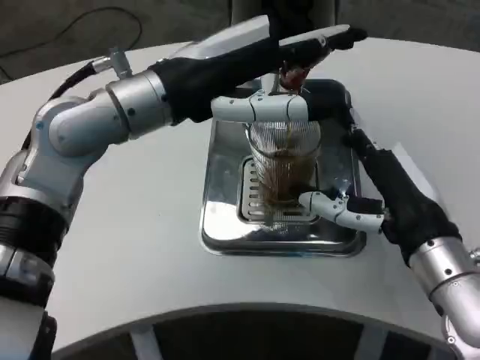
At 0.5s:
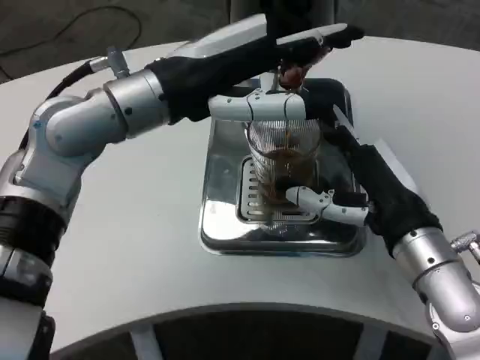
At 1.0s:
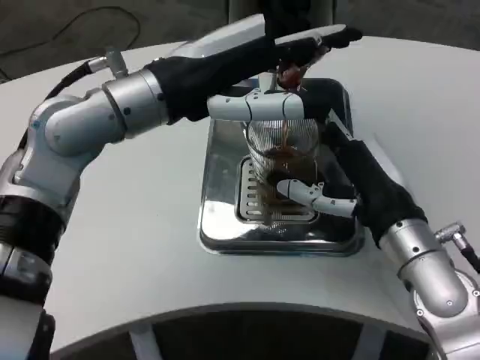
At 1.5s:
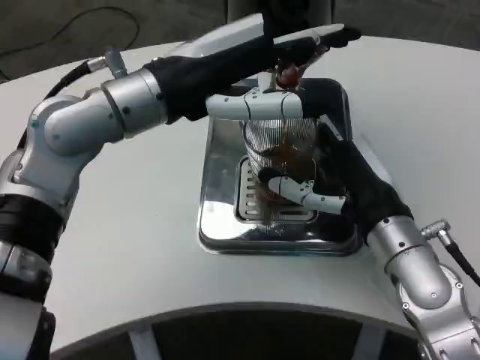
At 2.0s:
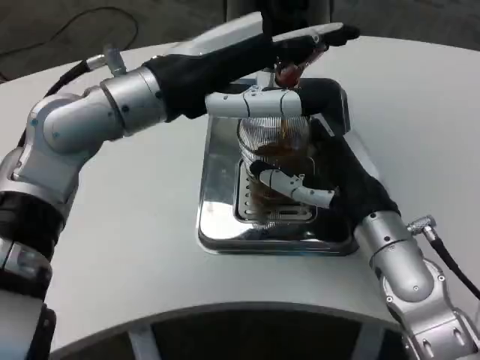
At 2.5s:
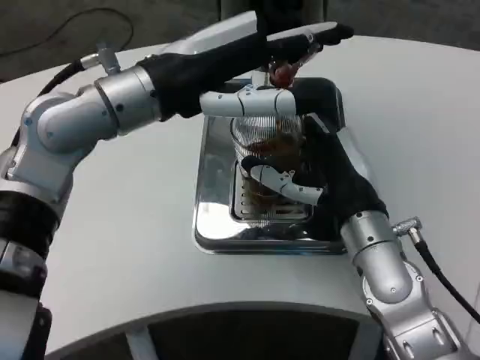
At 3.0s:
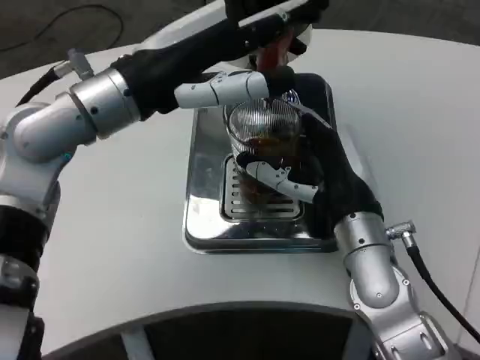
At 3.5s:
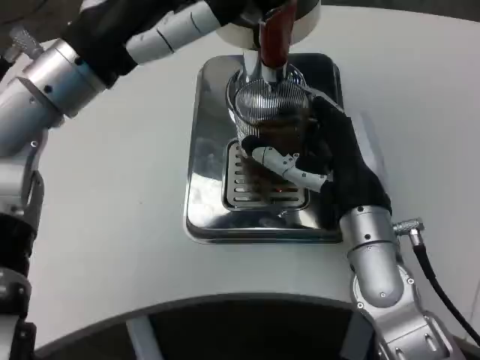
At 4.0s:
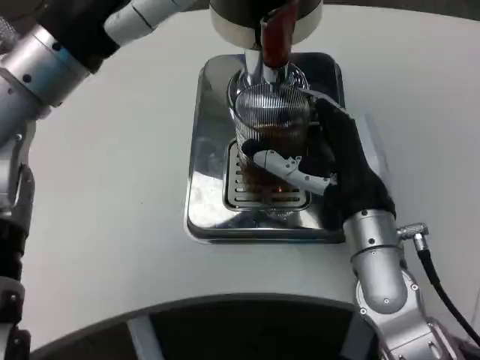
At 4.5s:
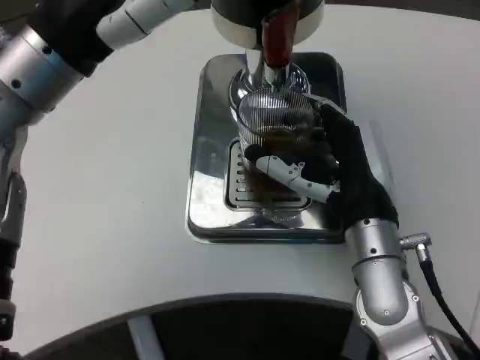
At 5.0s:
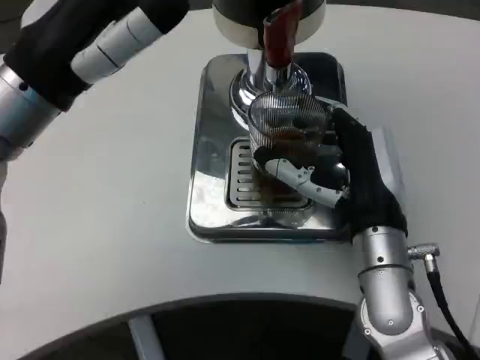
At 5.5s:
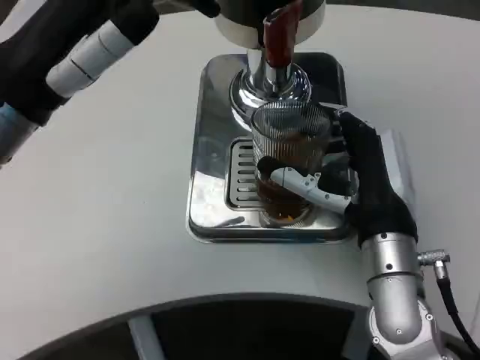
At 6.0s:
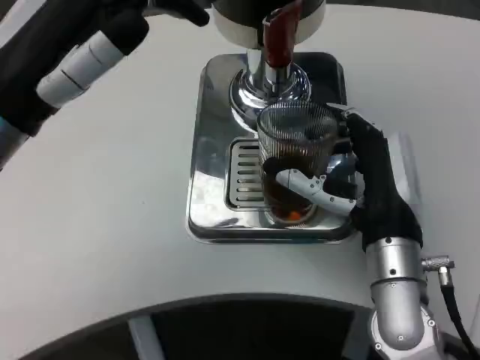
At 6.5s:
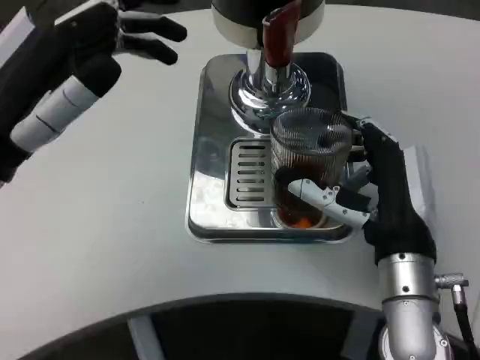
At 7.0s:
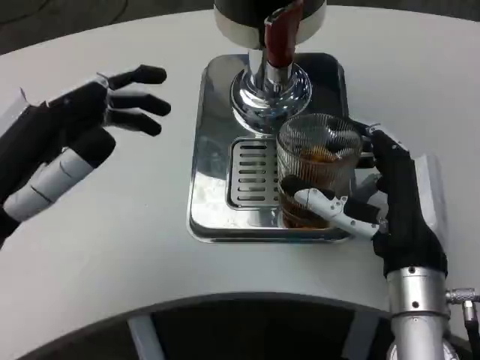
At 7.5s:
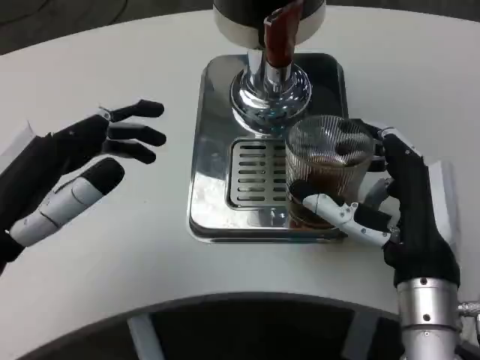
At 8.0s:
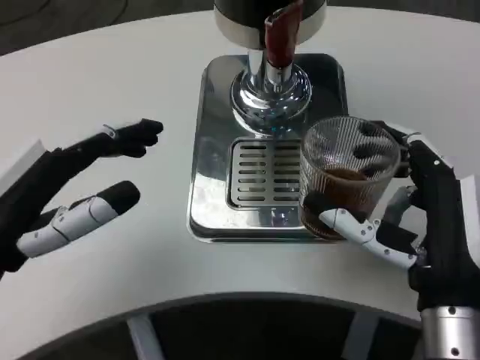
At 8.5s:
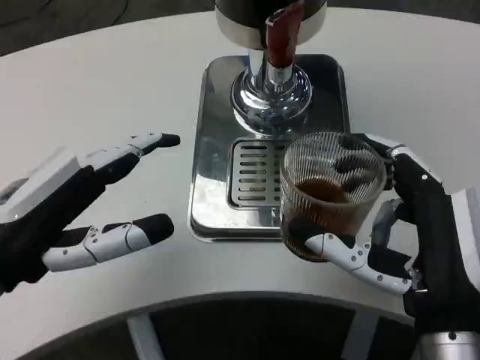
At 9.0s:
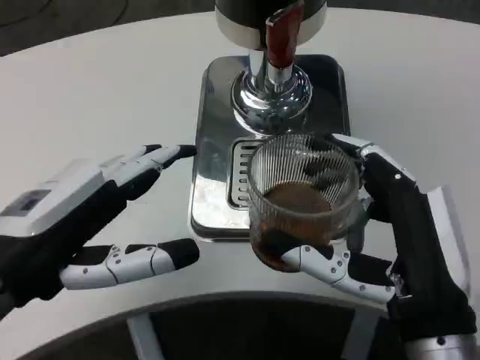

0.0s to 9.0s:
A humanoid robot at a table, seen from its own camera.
Task of the whole recording: Grasp the cup under the faucet to collect the drink, then remove the cup.
0.0s to 2.0s: The right hand moves forward, some 5 cm.
2.0s to 4.5s: The left hand moves roughly 5 cm.
4.5s to 7.0s: The right hand shifts by some 5 cm, while the left hand heads downward, backward and to the left, covering about 15 cm.
7.0s to 9.0s: The right hand moves backward, about 10 cm.

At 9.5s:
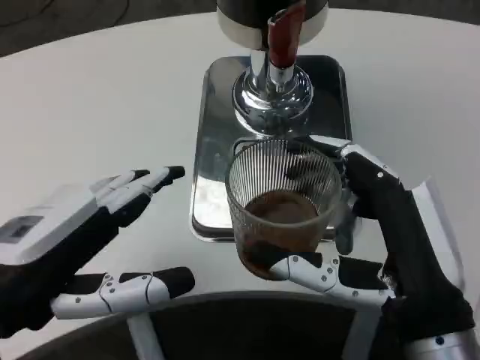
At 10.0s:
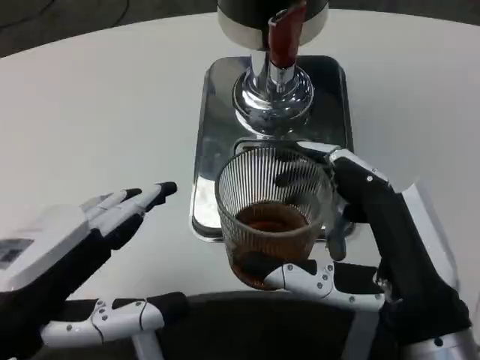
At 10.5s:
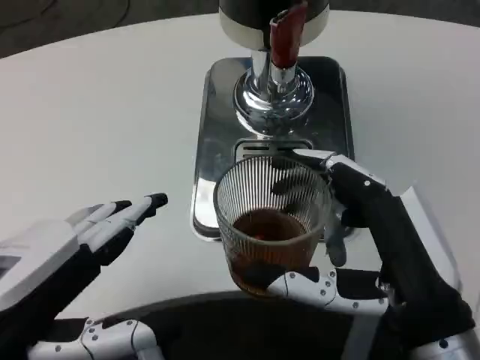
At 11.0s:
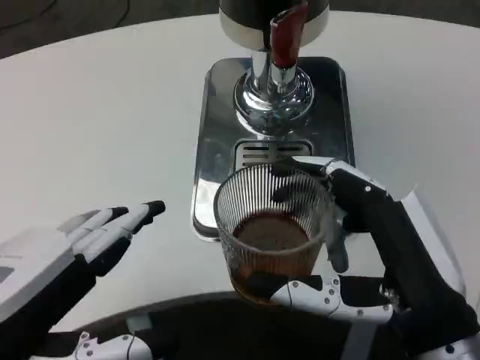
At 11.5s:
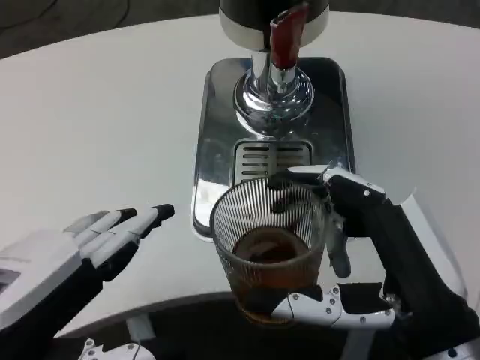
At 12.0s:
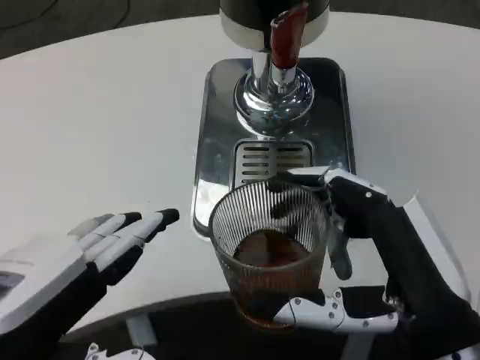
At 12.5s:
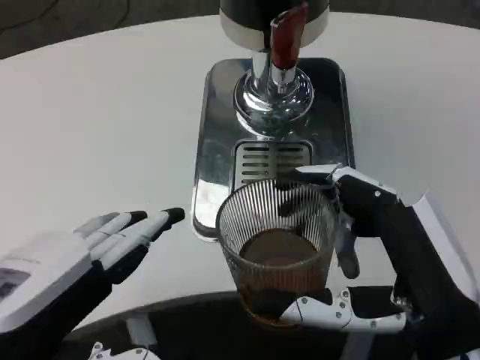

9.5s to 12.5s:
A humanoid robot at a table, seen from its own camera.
Task of the whole recording: Grasp the cup under the faucet to collect the drink, then remove the cup.
11.0s to 12.5s: Both hands stay put.

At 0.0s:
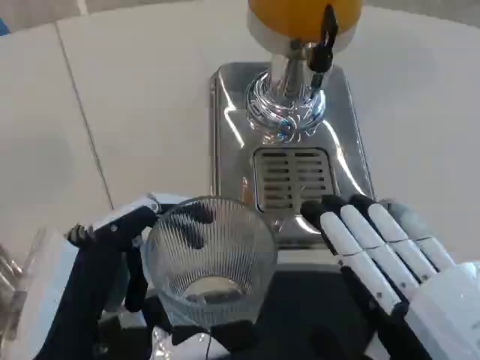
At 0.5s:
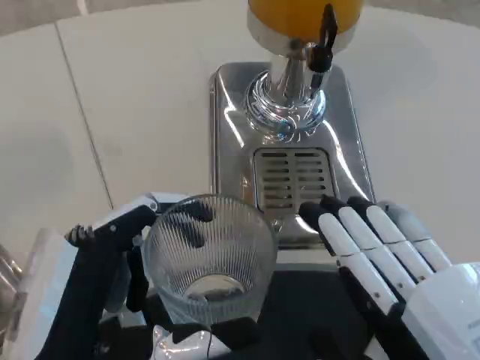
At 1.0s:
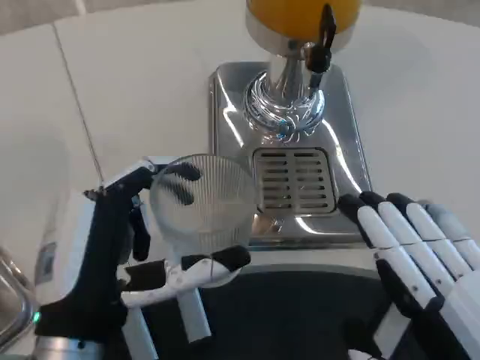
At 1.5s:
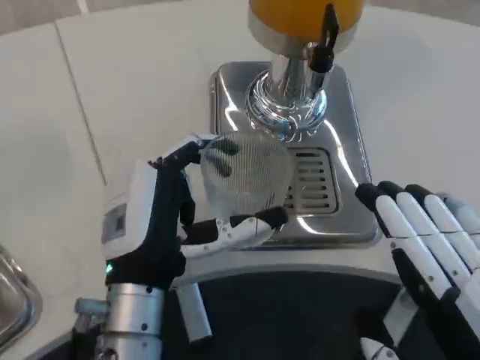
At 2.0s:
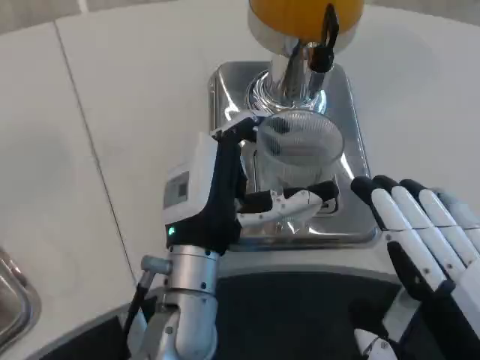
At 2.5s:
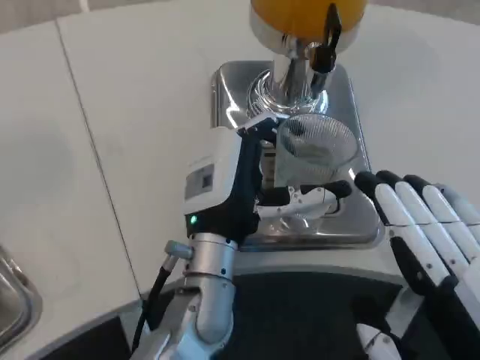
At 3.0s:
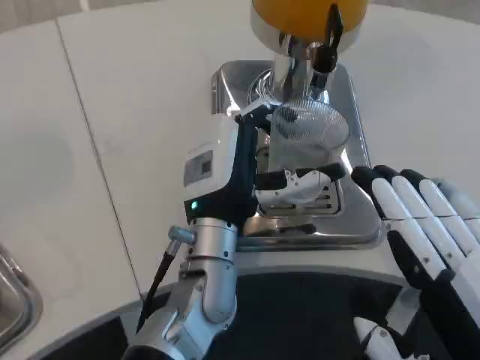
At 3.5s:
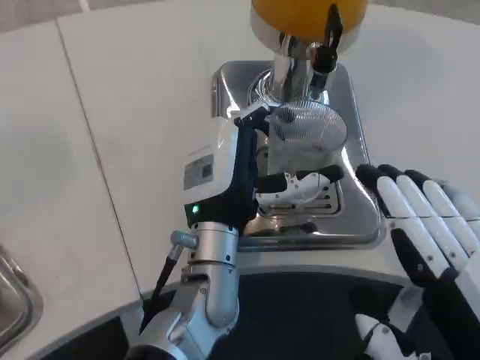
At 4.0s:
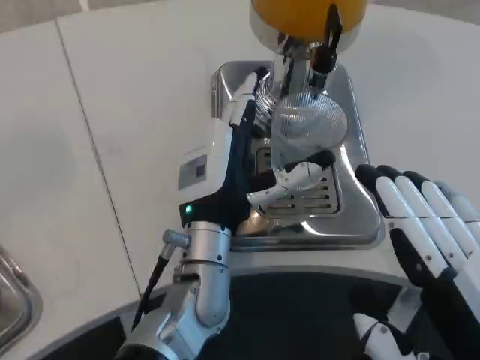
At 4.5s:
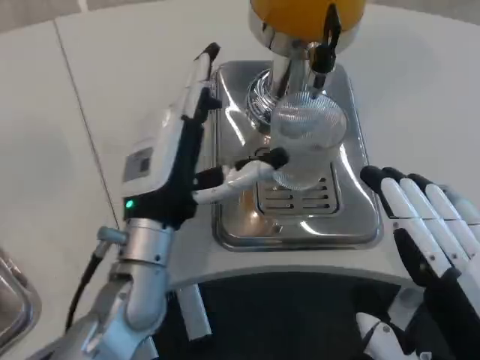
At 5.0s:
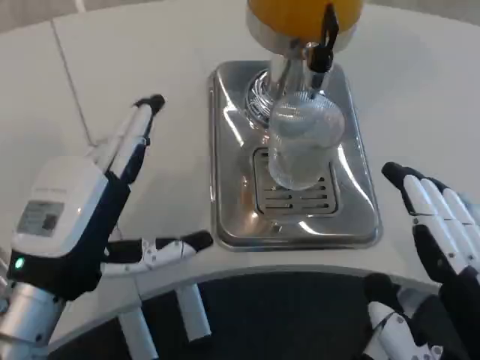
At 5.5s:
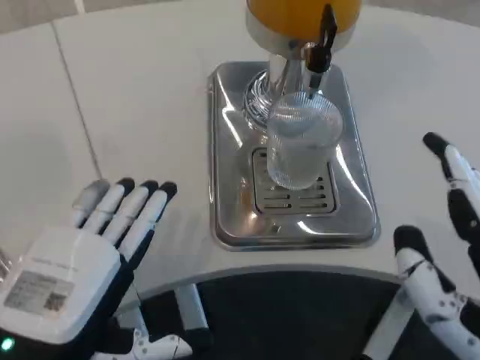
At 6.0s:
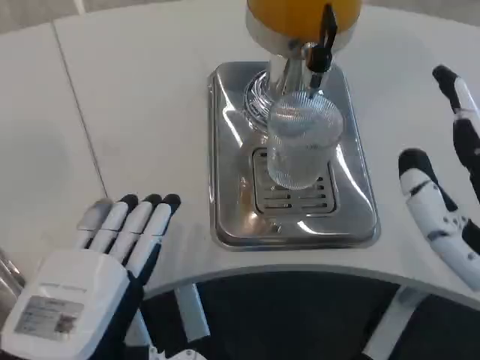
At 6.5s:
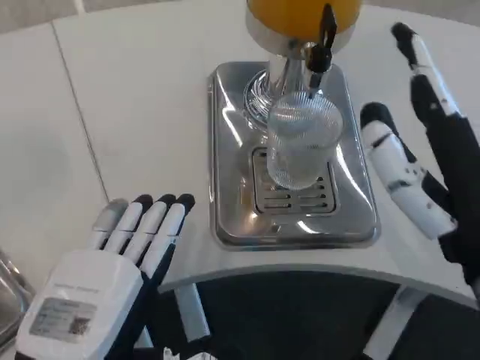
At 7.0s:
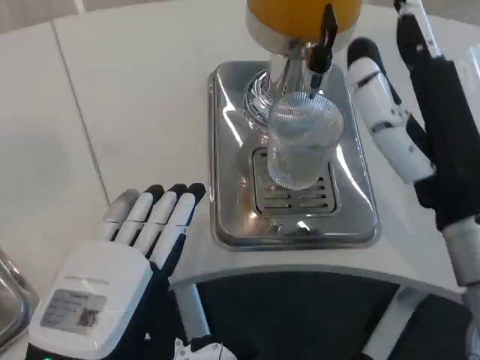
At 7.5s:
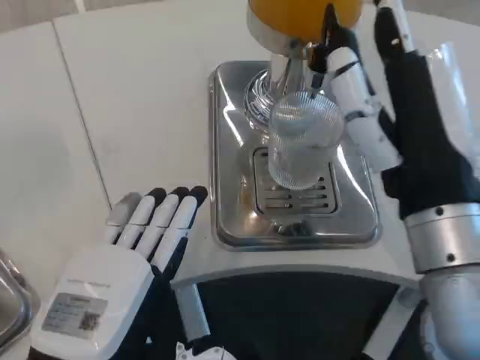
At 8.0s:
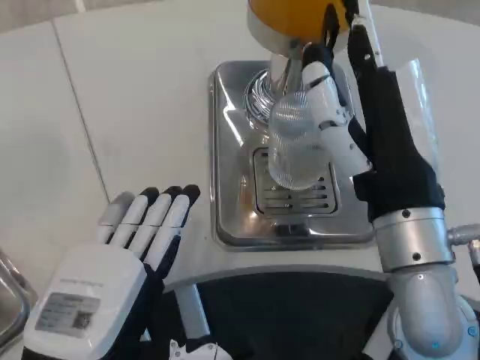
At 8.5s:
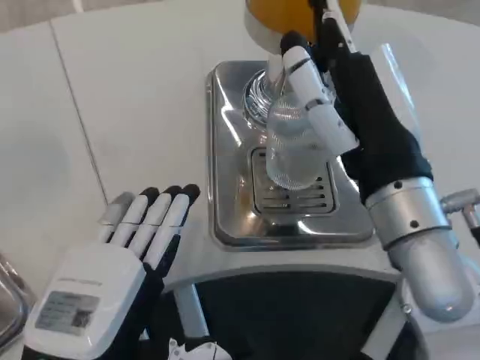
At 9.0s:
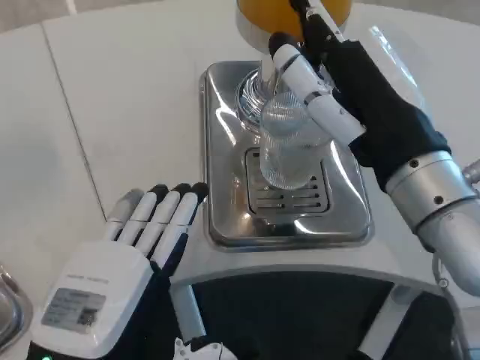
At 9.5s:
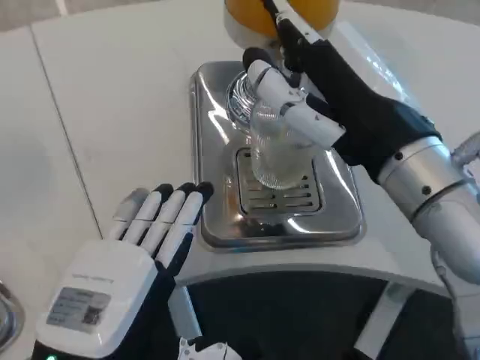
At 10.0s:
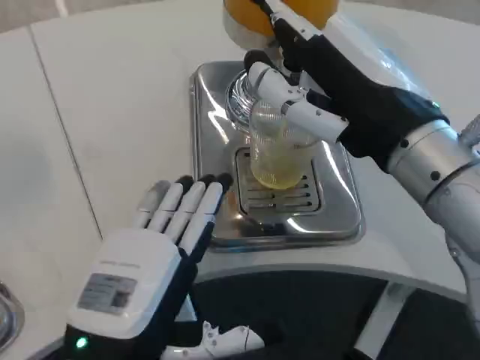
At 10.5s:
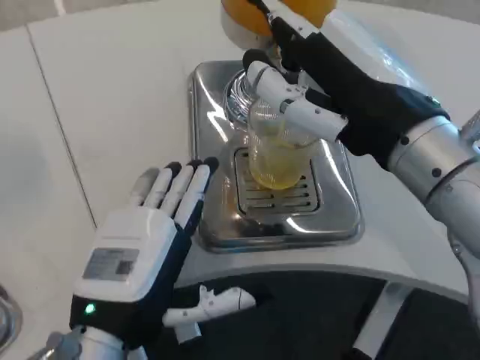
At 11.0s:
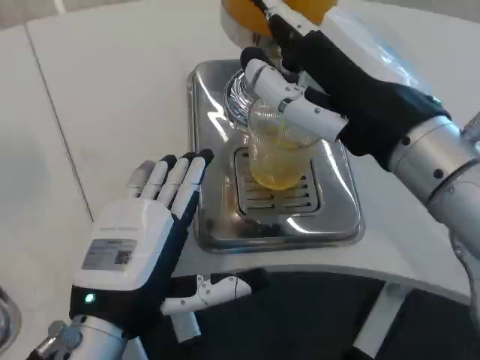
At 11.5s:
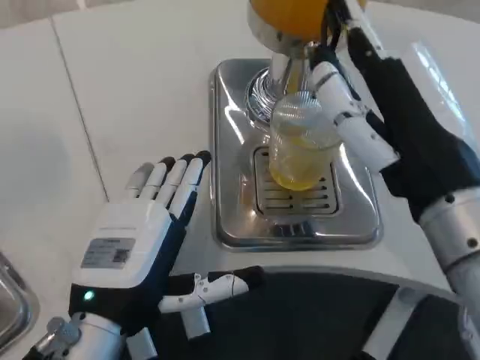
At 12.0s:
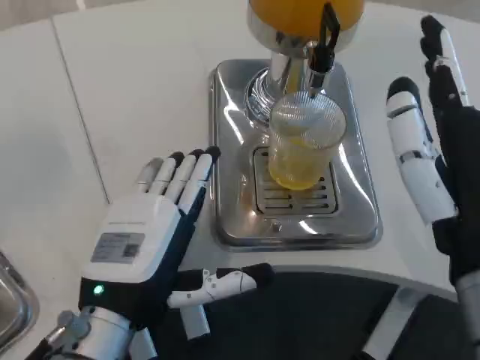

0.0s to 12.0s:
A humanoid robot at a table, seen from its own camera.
Task of the whole recording: Grasp the cup under the faucet to collect the drink, then remove the cup.
0.0s to 2.0s: The left hand travels forward and to the right by approximately 20 cm.
2.0s to 4.0s: There are only small adjustments of the hands.
4.0s to 6.0s: The right hand heads forward, covering approximately 5 cm; the left hand heads backward and to the left, covering some 25 cm.
6.0s to 8.0s: The right hand travels forward and to the left by approximately 10 cm.
8.0s to 10.0s: The right hand goes roughly 10 cm upward.
10.0s to 12.0s: The left hand shifts roughly 5 cm forward. Meanwhile the right hand moves backward and downward, about 10 cm.

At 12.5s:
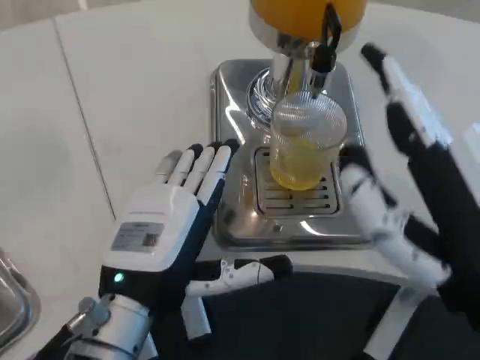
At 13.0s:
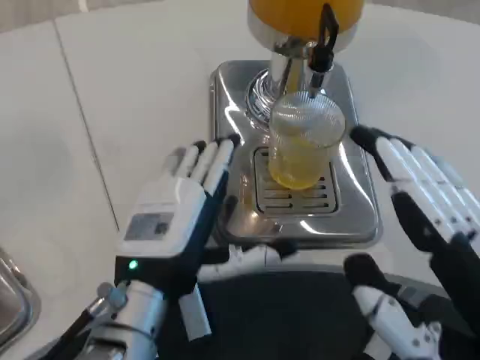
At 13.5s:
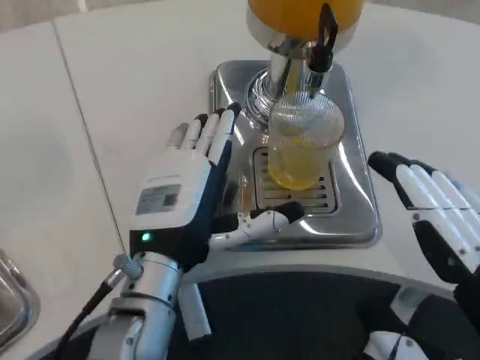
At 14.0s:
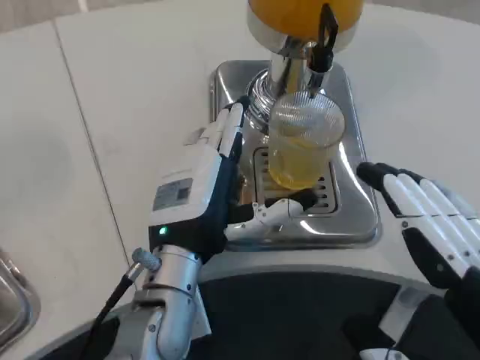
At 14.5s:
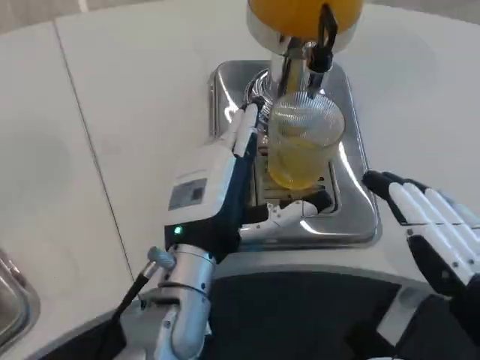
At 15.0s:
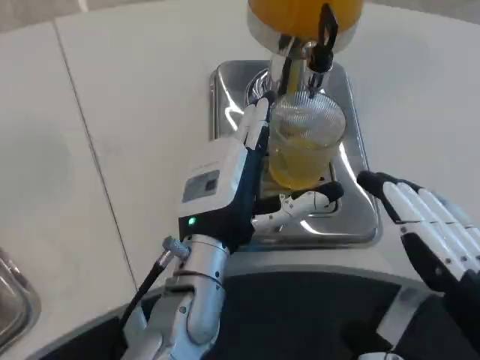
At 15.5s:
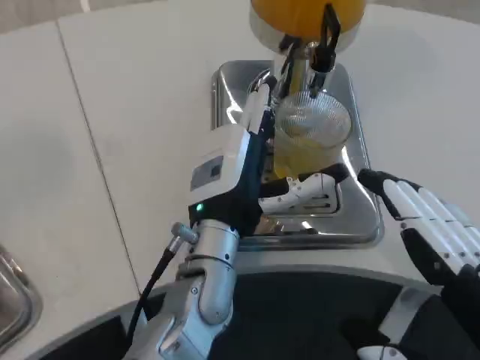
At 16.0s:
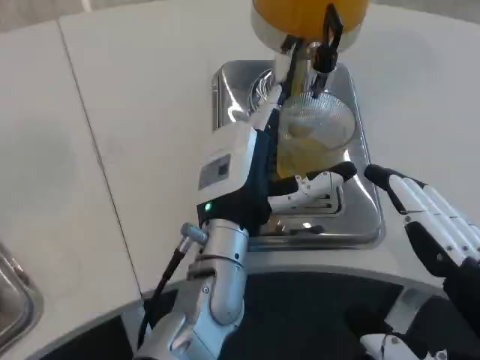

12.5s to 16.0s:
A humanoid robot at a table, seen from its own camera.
Task of the whole recording: Grasp the cup under the faucet to collect the drink, then remove the cup.
12.5s to 14.5s: The right hand goes roughly 5 cm backward. The left hand travels forward and to the right by some 10 cm.
